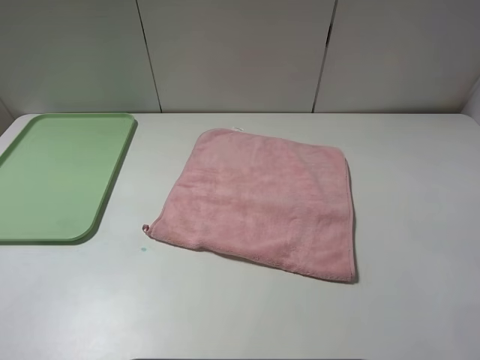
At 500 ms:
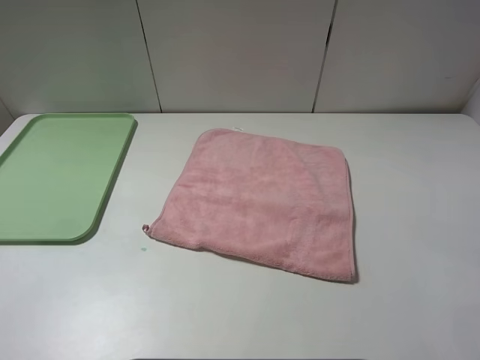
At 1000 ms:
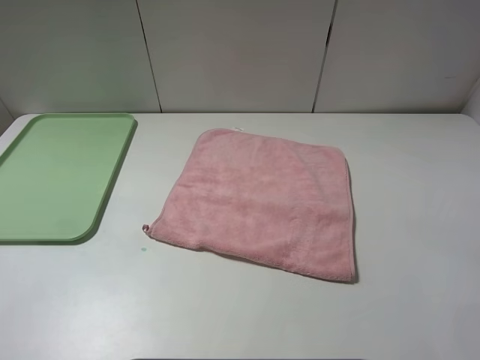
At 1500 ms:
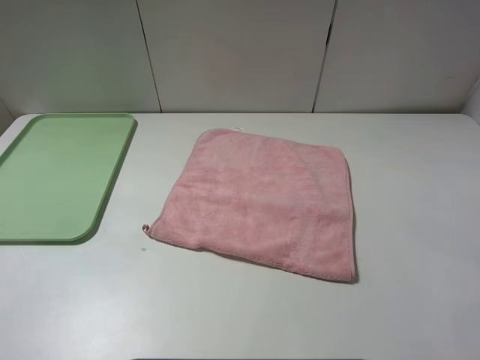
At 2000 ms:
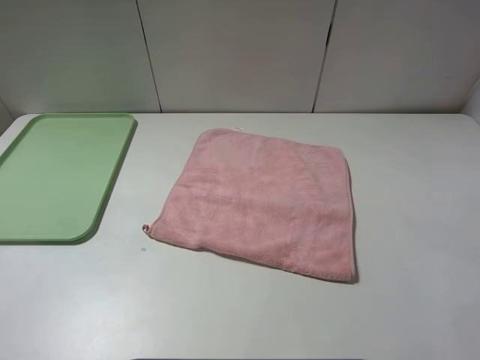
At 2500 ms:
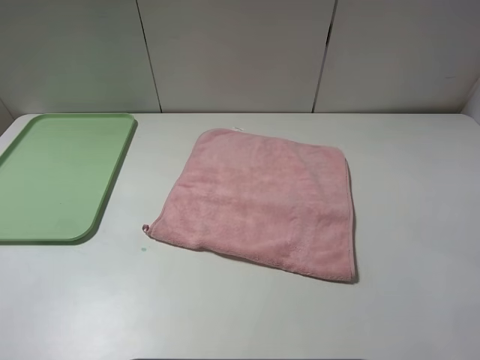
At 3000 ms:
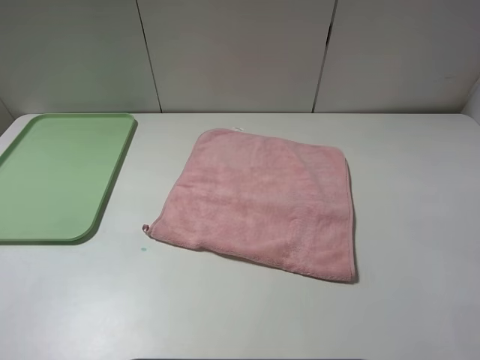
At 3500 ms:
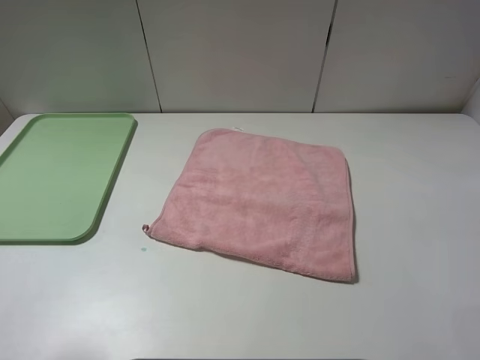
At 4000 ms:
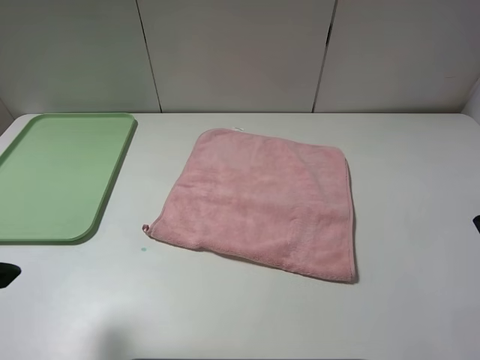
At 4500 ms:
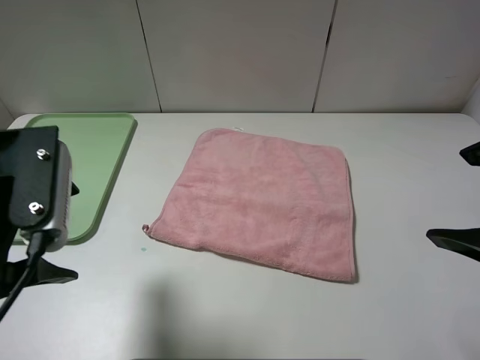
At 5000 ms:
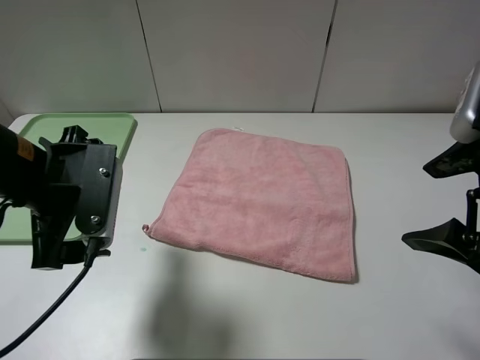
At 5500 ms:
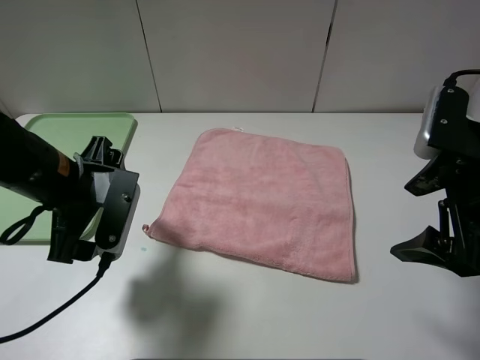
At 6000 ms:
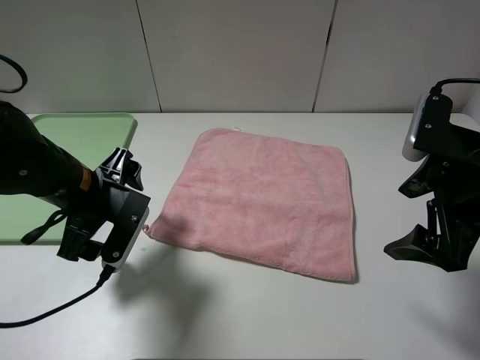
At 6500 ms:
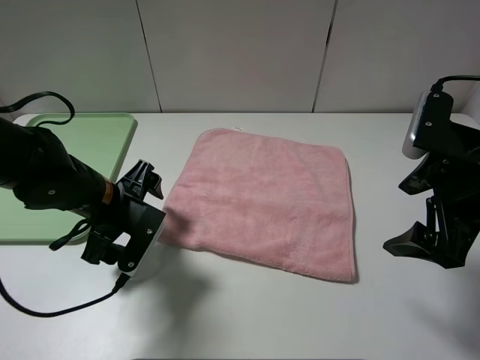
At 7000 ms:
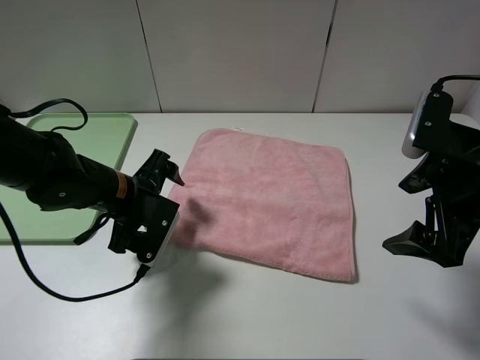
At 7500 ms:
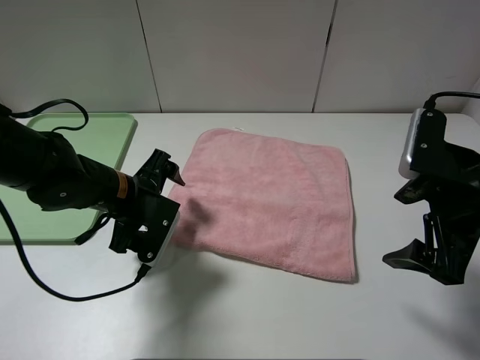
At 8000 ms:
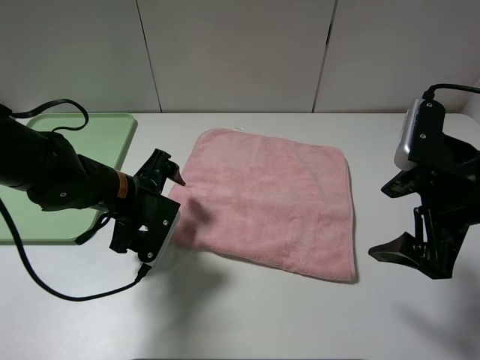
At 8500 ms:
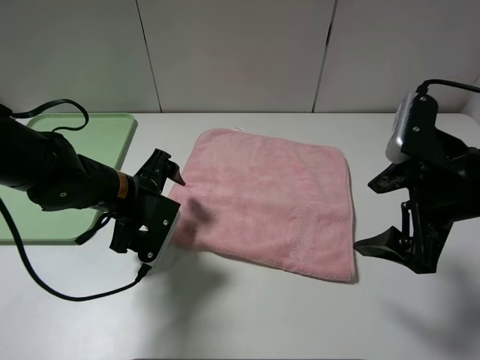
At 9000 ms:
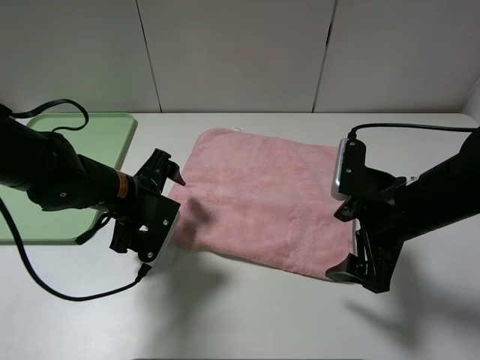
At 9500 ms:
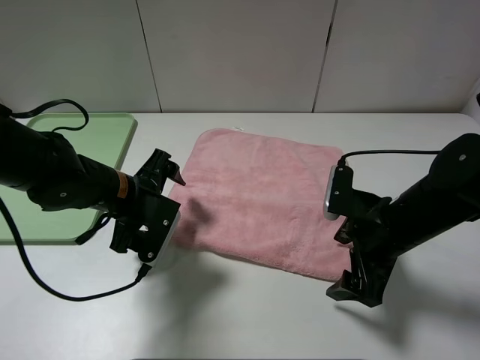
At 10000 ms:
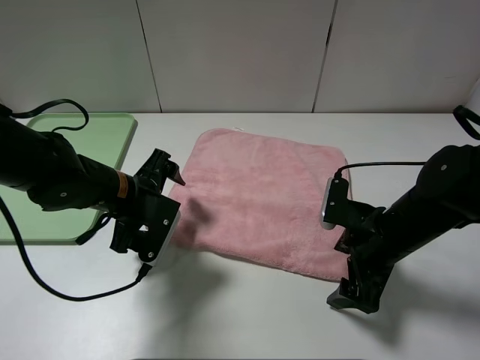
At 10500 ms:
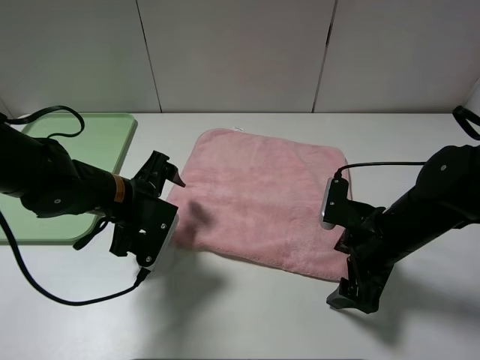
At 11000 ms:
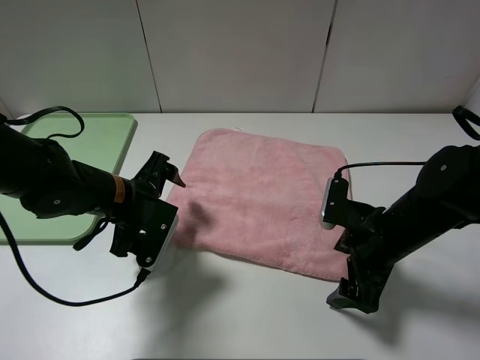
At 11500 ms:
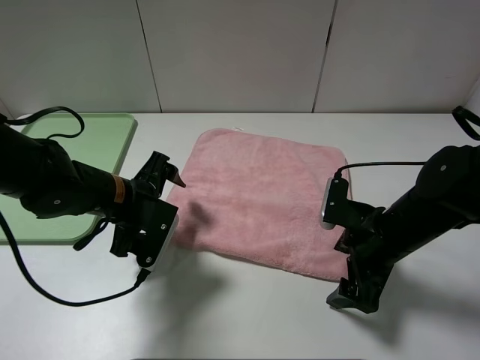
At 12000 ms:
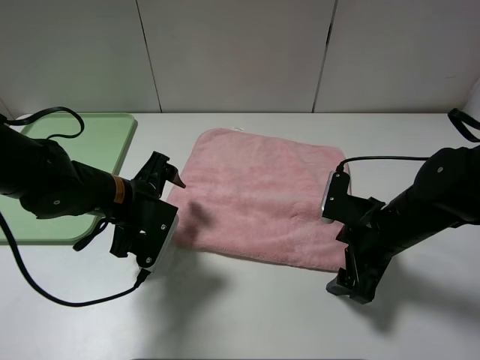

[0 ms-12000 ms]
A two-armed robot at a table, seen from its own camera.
0 ms to 2000 ms: Neither gripper changes place.
2000 ms to 4000 ms: The left gripper travels forward by approximately 10 cm.
4000 ms to 6000 ms: The right gripper heads forward and downward, covering some 15 cm; the left gripper goes approximately 20 cm downward, forward and to the right.
6000 ms to 8000 ms: The left gripper moves roughly 5 cm.
8000 ms to 10000 ms: The right gripper goes approximately 10 cm downward.
10000 ms to 12000 ms: There are only small adjustments of the grippers.

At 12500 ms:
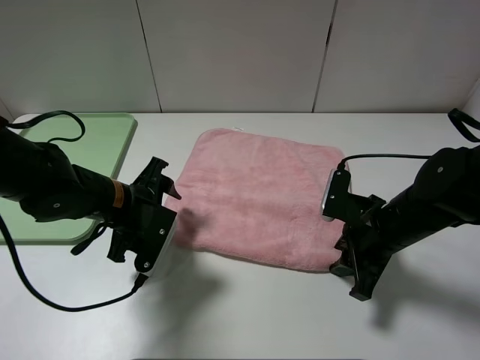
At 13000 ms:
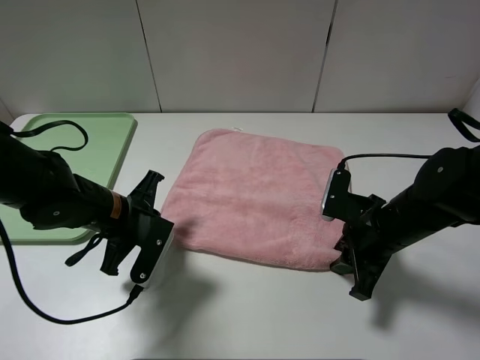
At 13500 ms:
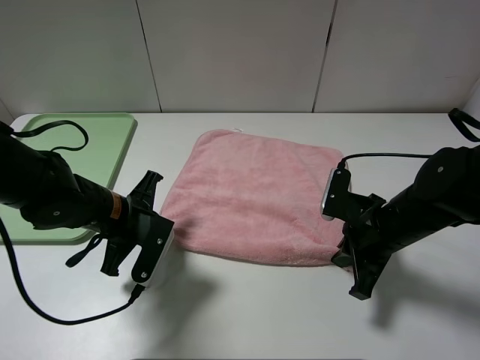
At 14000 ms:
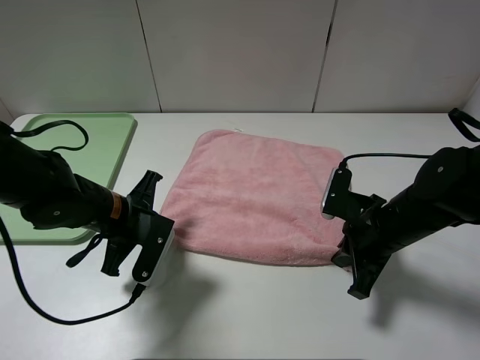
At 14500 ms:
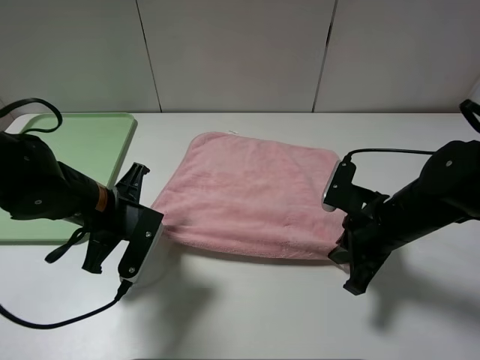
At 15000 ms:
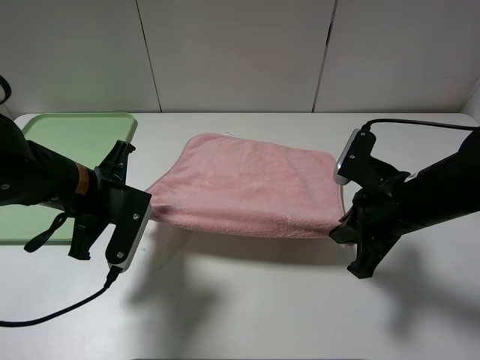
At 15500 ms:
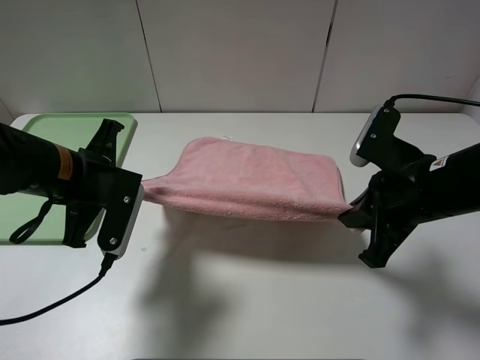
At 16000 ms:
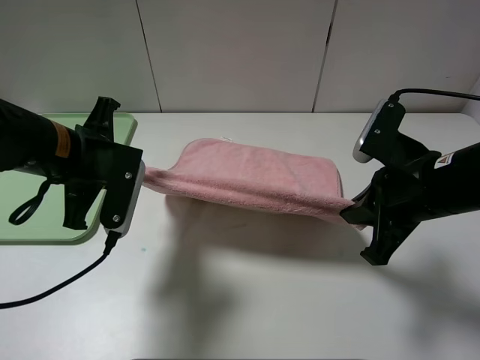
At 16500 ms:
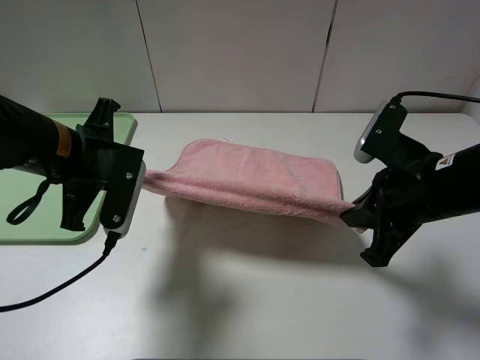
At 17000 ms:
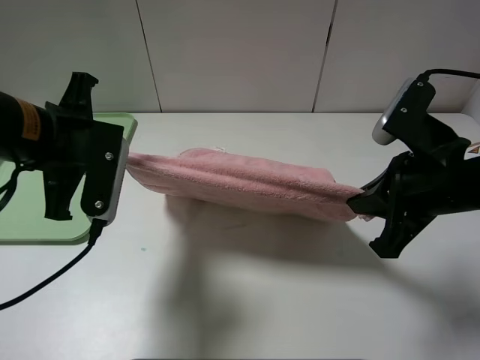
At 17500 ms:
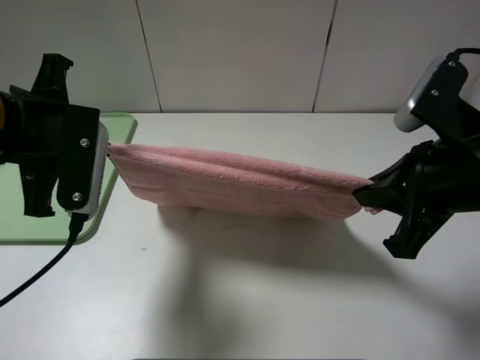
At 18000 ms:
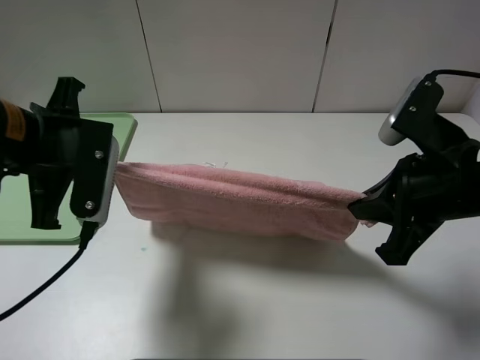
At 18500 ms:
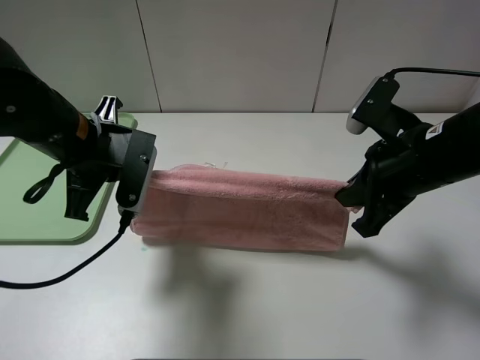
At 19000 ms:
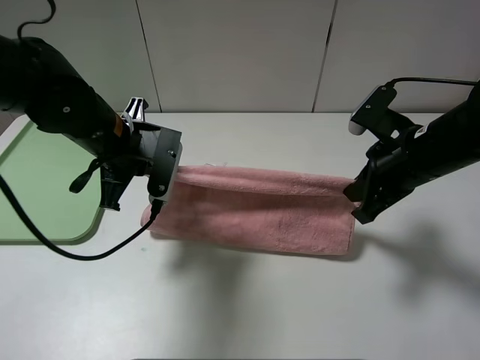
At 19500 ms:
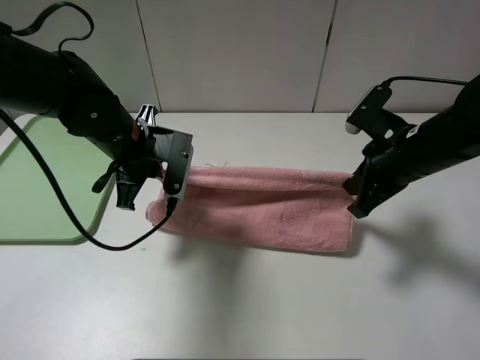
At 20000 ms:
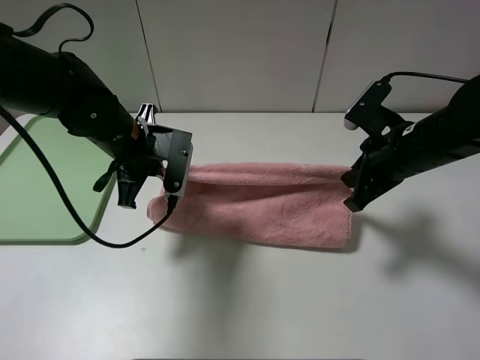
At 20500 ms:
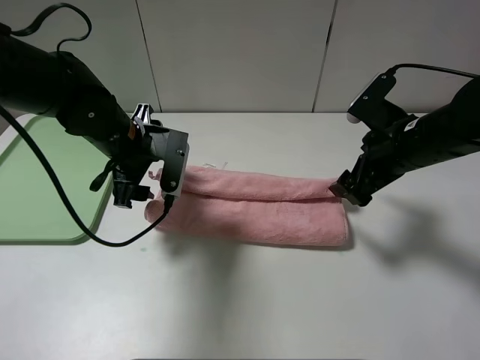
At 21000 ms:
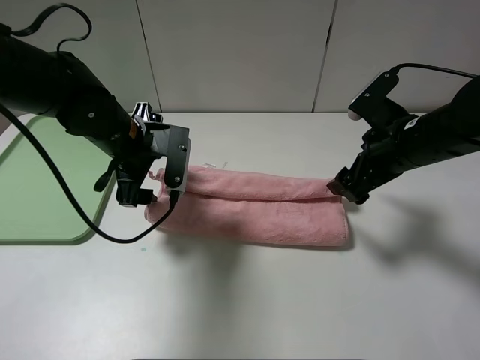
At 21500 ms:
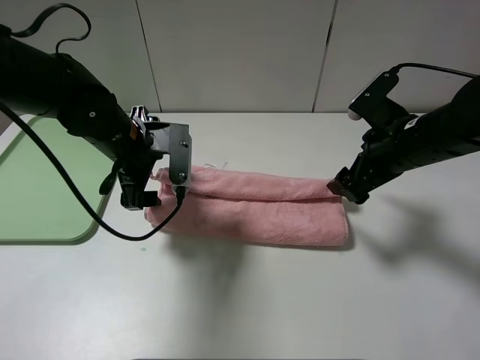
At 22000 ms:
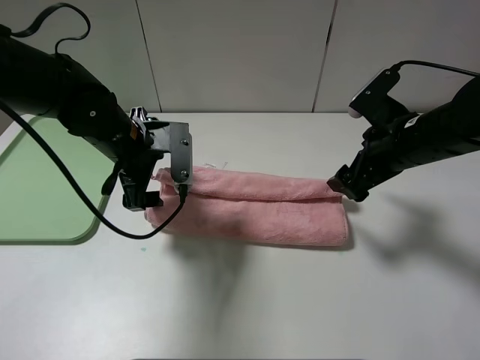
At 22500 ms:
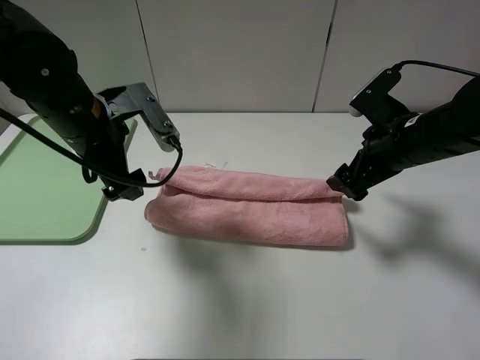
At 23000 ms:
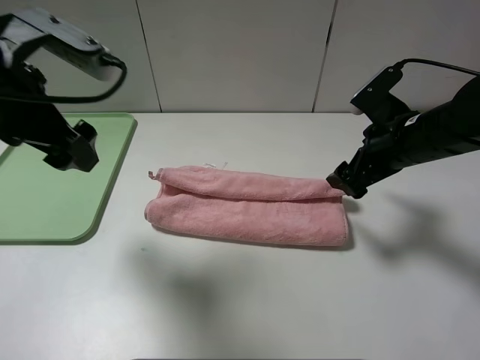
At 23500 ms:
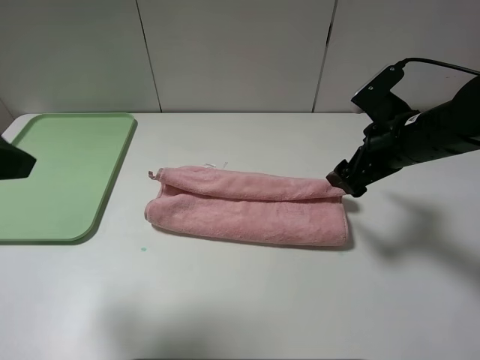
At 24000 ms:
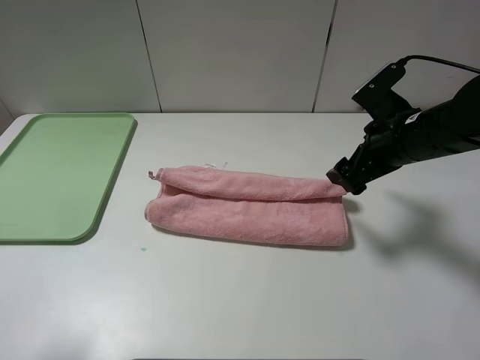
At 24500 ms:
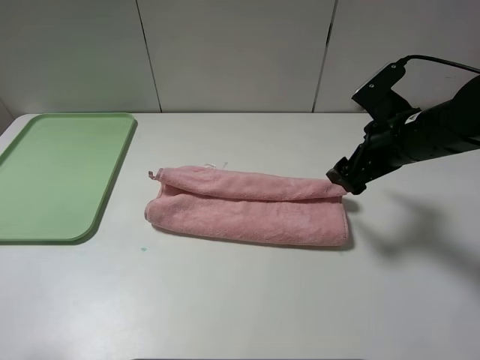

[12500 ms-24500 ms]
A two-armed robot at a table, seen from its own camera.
12500 ms to 14500 ms: The right gripper closes its fingers. Meanwhile the left gripper closes.
14500 ms to 16500 ms: The grippers both shift upward by about 10 cm.
18500 ms to 20500 ms: Both grippers move forward, approximately 5 cm. The left gripper opens. Meanwhile the right gripper opens up.
20500 ms to 22500 ms: The left gripper goes about 5 cm upward.
22500 ms to 24500 ms: The left gripper travels backward and to the left by about 30 cm.

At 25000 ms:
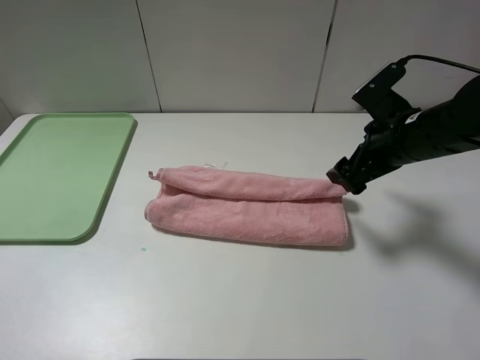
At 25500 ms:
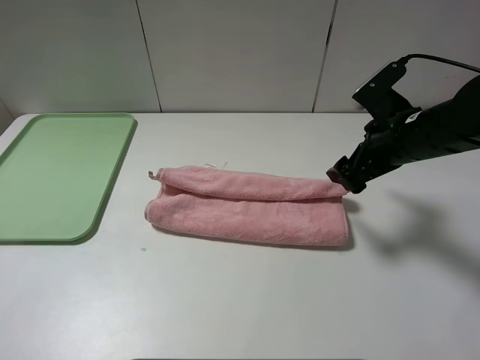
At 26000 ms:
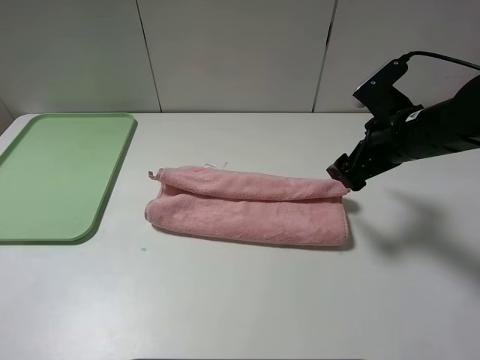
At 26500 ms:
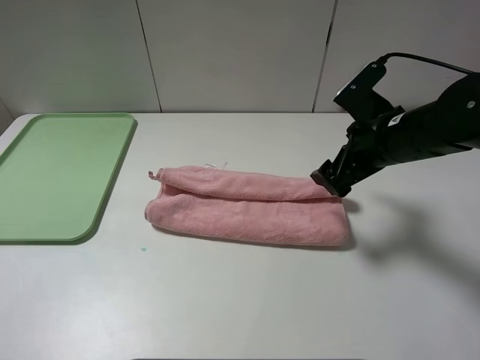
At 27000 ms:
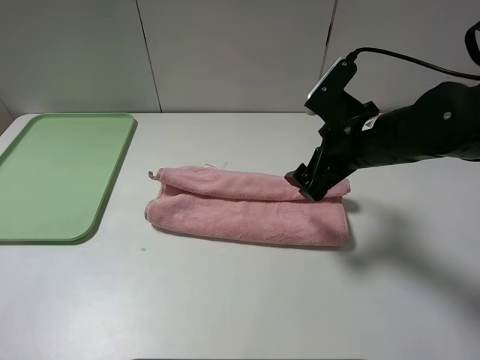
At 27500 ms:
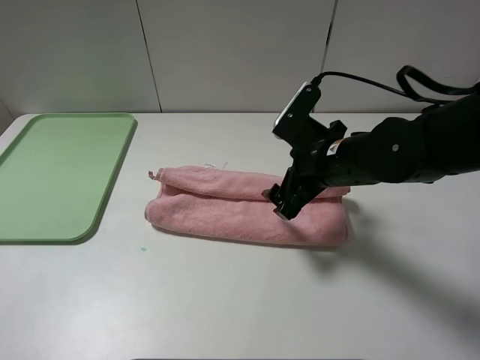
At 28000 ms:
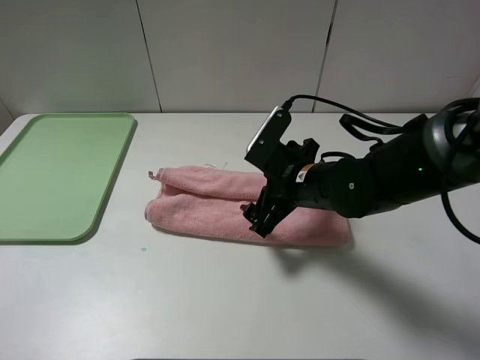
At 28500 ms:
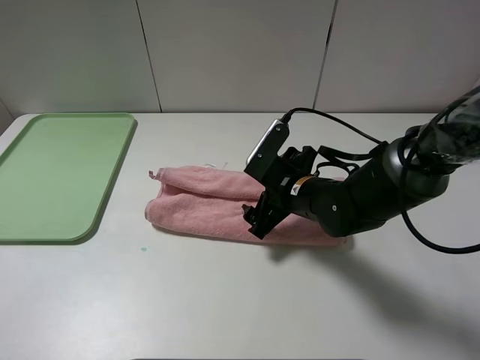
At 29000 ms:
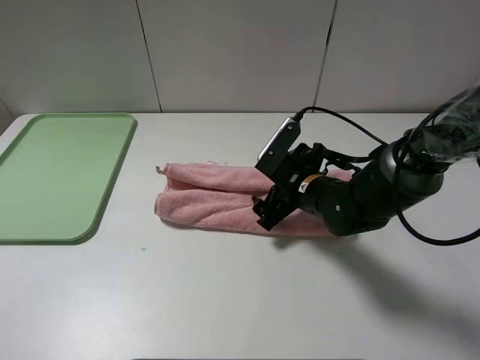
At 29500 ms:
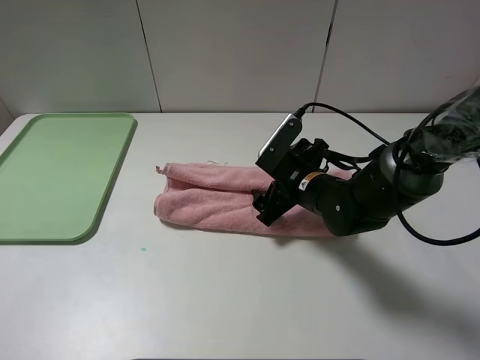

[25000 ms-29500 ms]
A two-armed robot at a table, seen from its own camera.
25000 ms to 27000 ms: The right gripper shifts approximately 5 cm to the left.
27000 ms to 29500 ms: The right gripper travels downward by approximately 10 cm.
